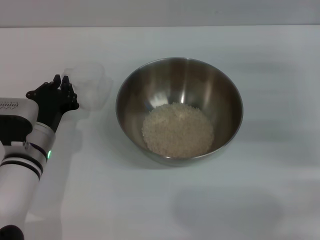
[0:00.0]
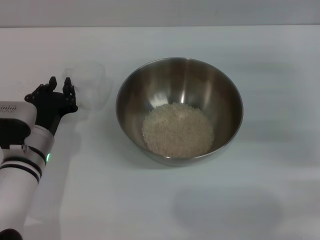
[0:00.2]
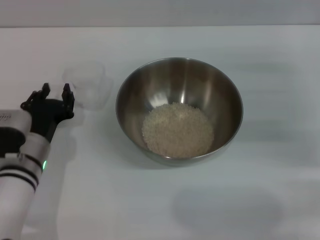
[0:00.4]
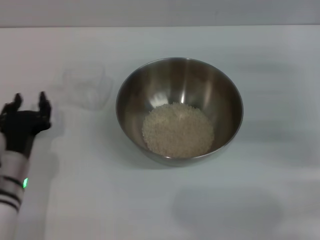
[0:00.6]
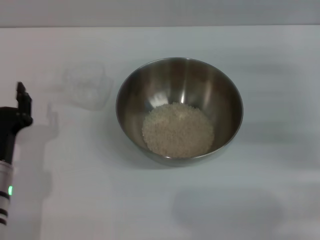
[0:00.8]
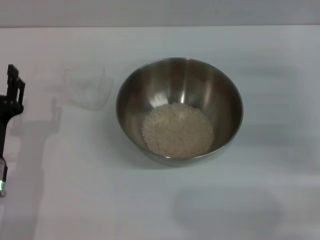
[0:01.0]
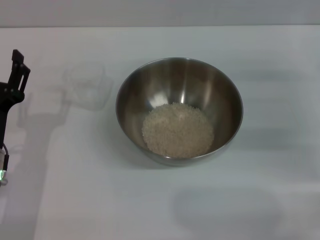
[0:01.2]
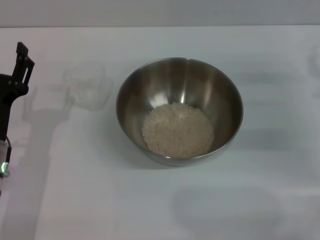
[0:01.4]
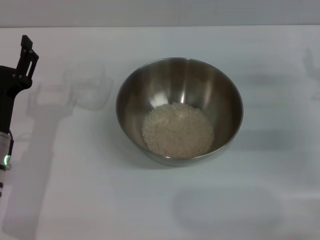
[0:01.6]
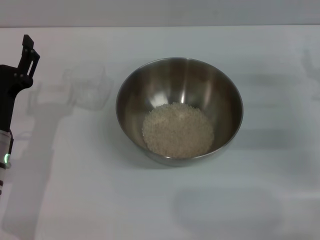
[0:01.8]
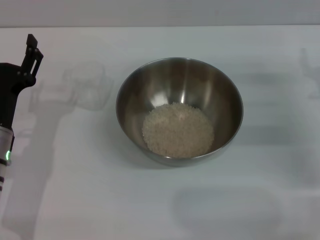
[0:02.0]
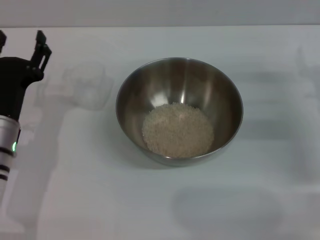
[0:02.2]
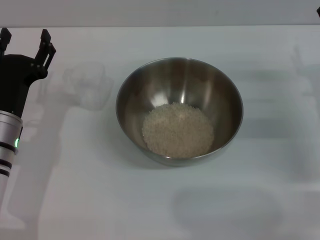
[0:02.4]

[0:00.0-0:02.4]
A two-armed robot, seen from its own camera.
Task of the whole recording: Place the bowl in the middle of the table with one hand and pour the rice from the grain cup into it with the other hand.
0:00.0 to 0:01.2: The left gripper is displaced backward by approximately 5 cm, and opens its fingers.
0:01.2 to 0:02.4: The left gripper moves forward, roughly 5 cm.
